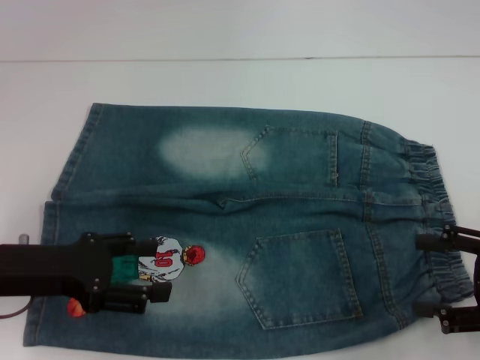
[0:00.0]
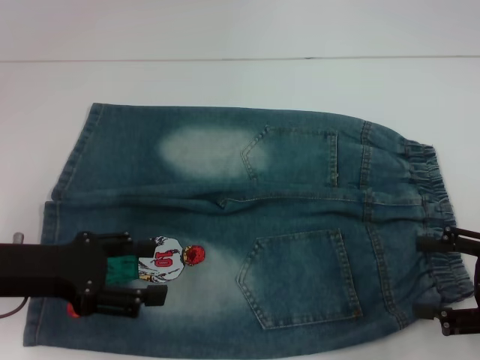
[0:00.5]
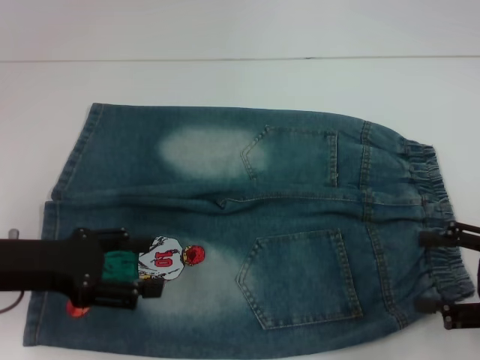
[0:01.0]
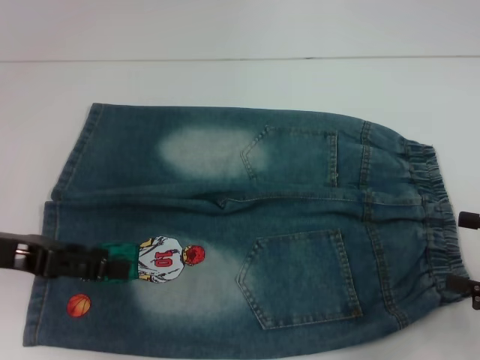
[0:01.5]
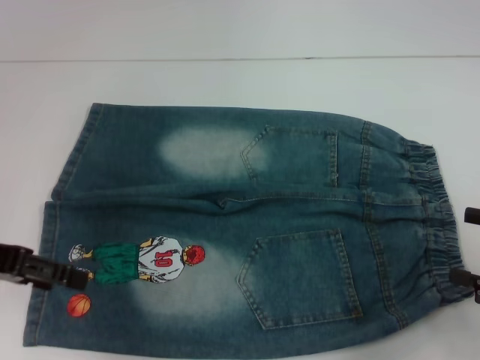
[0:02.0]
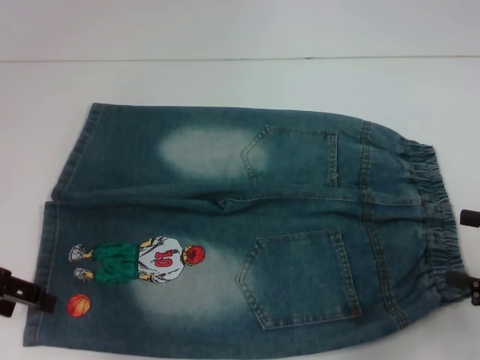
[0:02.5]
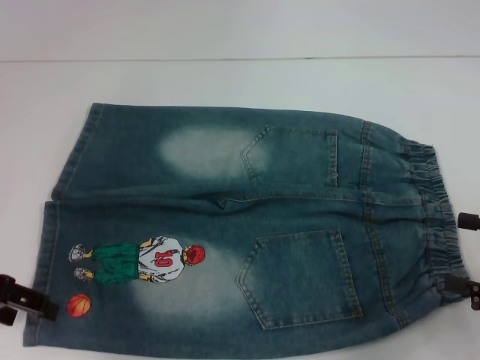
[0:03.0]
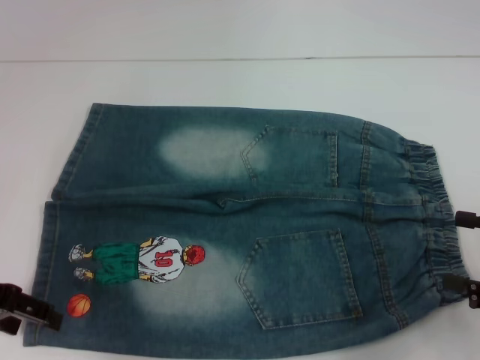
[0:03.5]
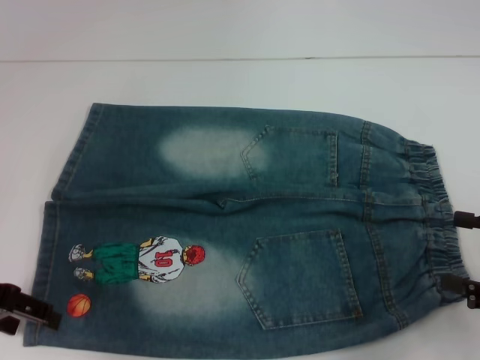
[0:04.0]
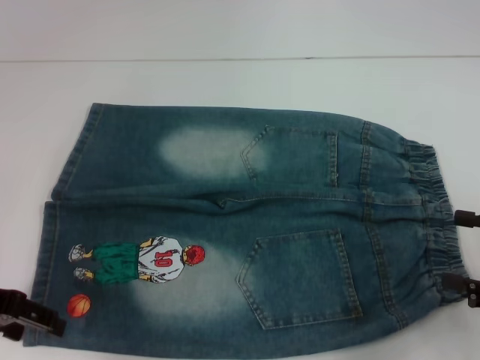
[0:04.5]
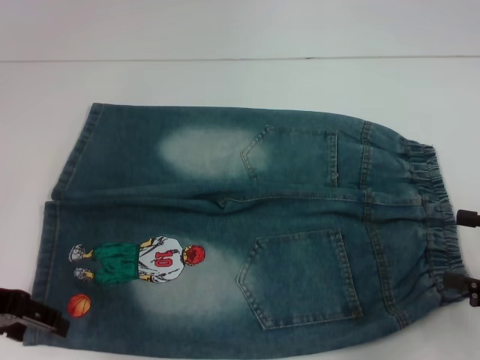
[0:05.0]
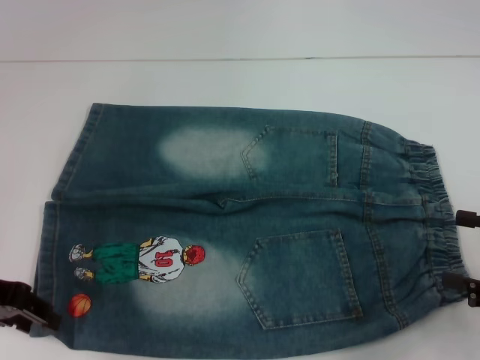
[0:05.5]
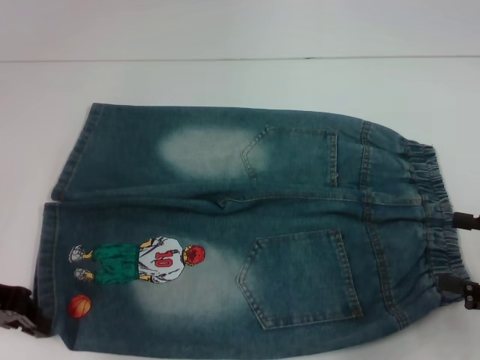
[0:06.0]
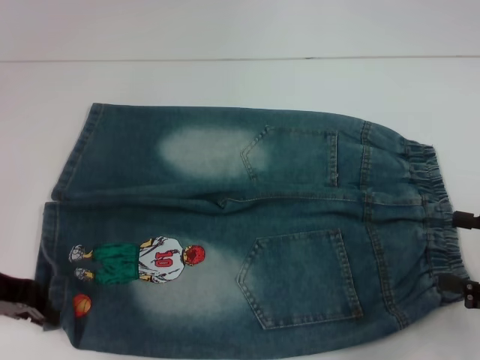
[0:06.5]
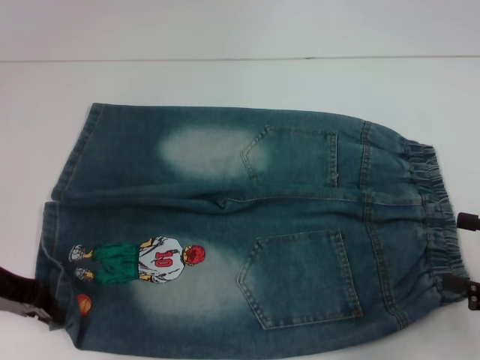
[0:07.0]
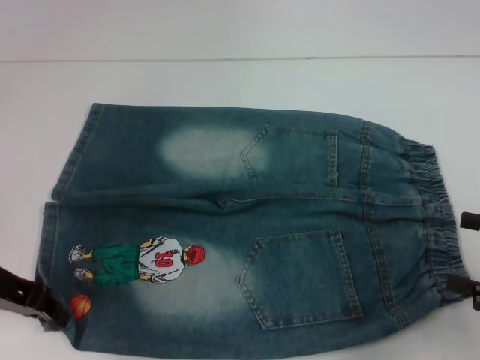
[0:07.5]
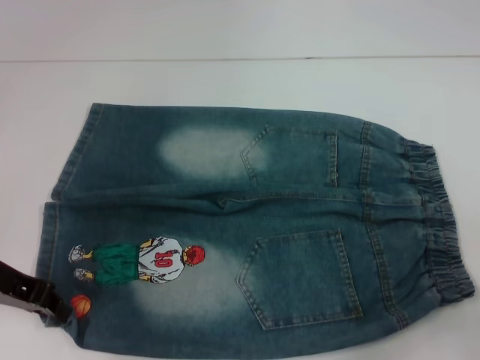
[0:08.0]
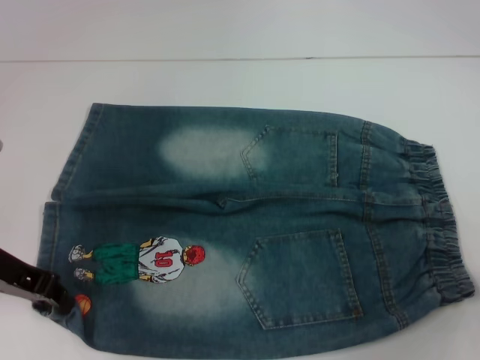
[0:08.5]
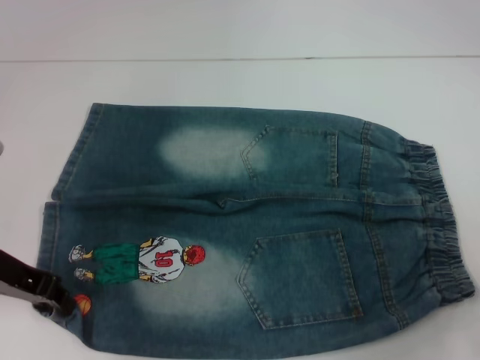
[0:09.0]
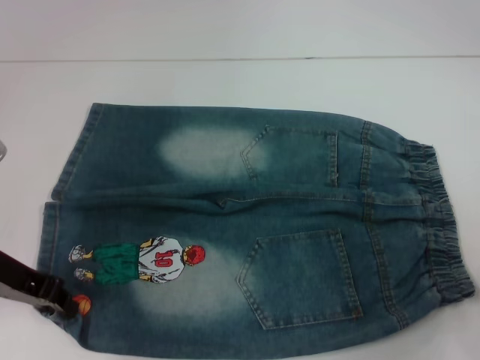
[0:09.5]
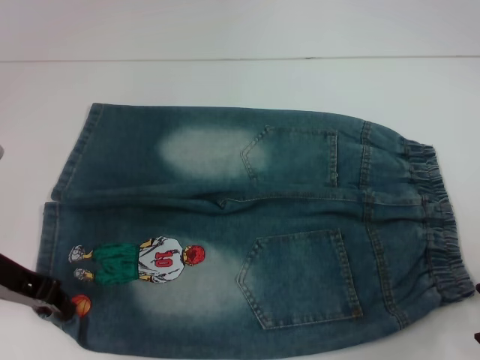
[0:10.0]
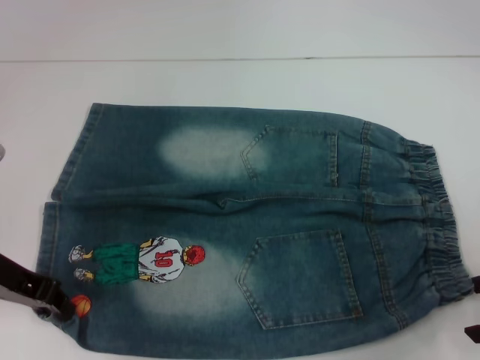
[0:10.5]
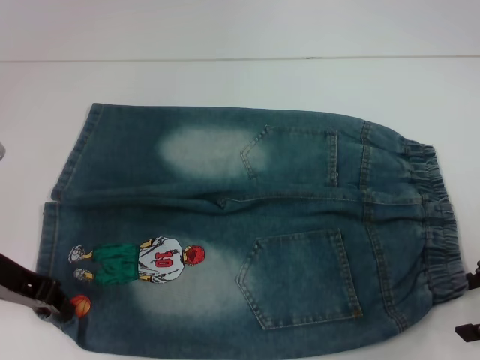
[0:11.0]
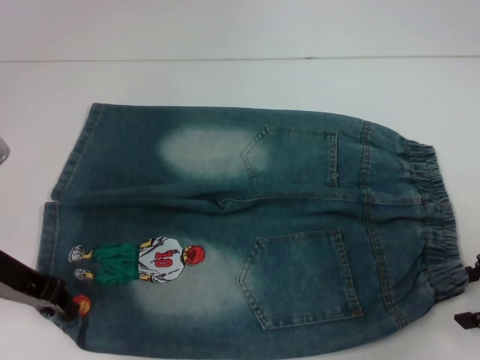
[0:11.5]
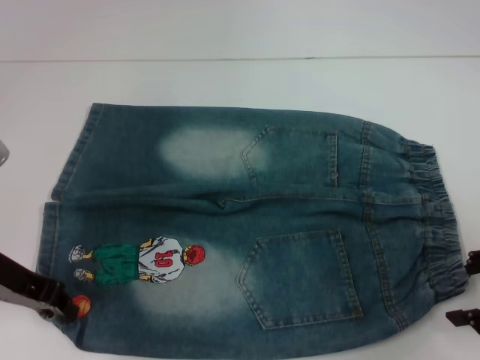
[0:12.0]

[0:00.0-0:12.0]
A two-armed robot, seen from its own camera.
Step, 0:00.0 to 0:05.5: Grab the lower left pant leg with your left hand.
0:00.0 to 0:02.0: The left gripper goes roughly 5 cm upward.
0:02.0 to 0:04.0: The grippers make only small movements.
0:04.0 to 0:06.0: The left gripper closes.
0:10.0 to 0:12.0: The grippers stay close to where they were, moving slightly.

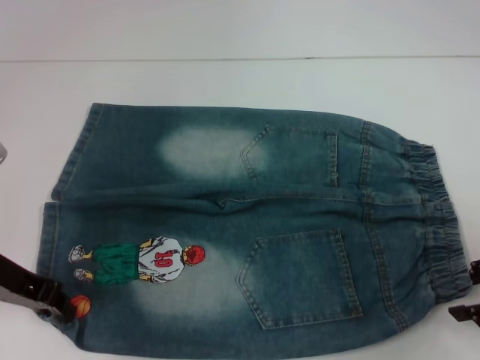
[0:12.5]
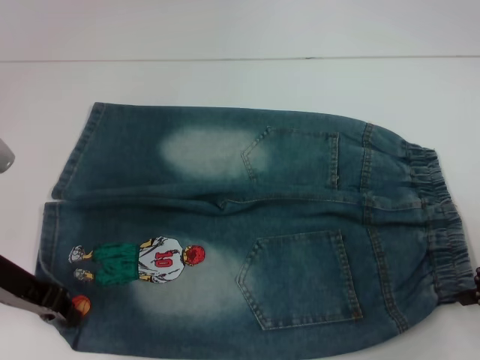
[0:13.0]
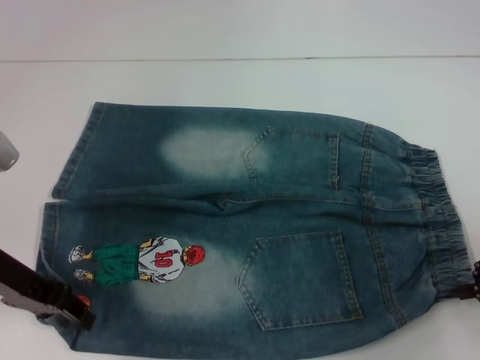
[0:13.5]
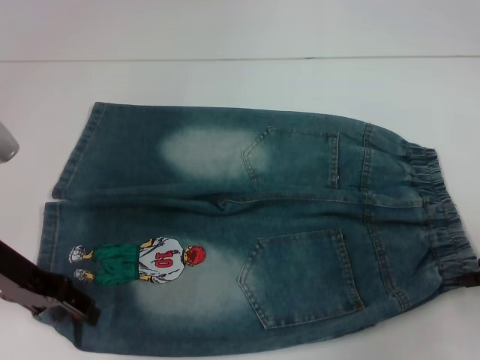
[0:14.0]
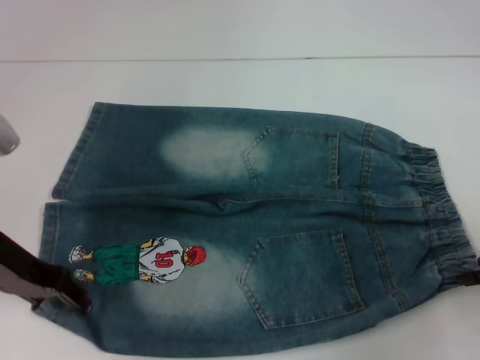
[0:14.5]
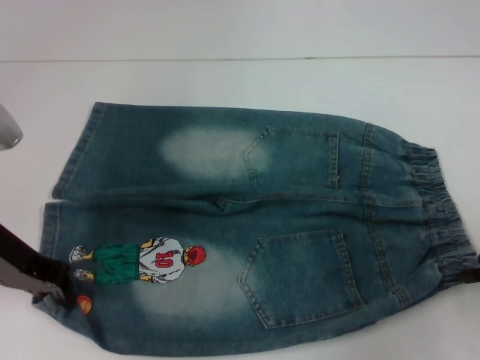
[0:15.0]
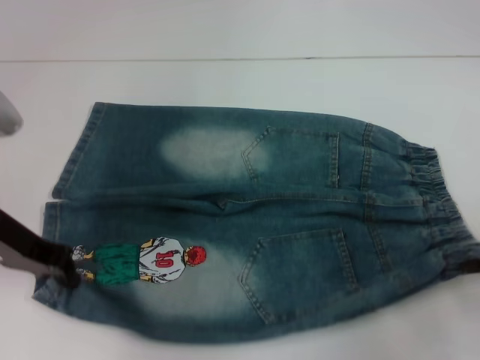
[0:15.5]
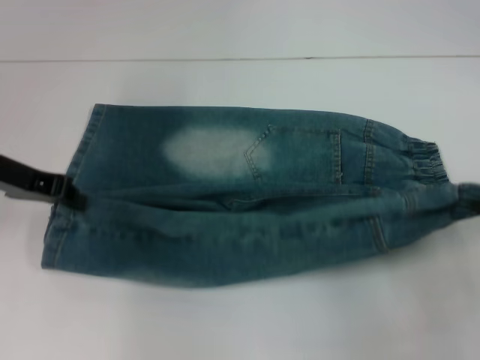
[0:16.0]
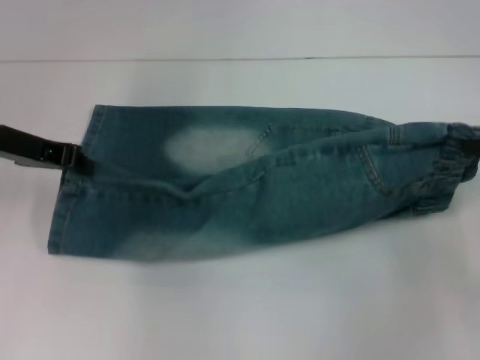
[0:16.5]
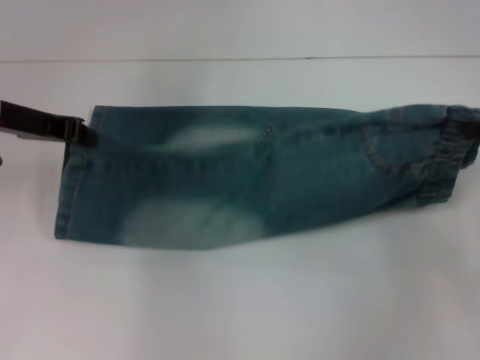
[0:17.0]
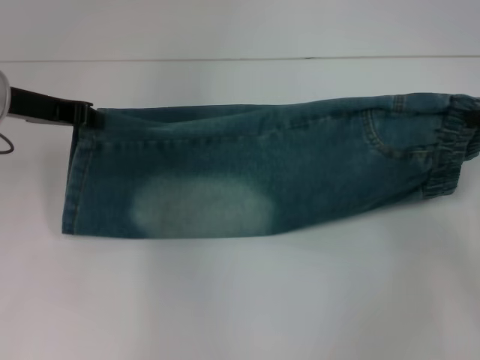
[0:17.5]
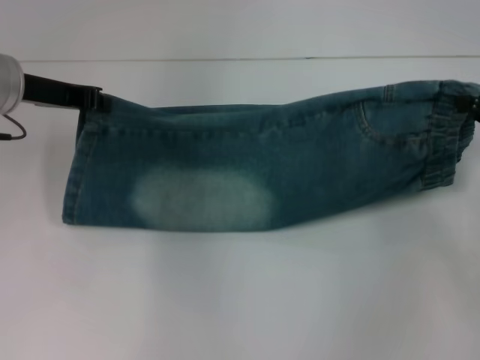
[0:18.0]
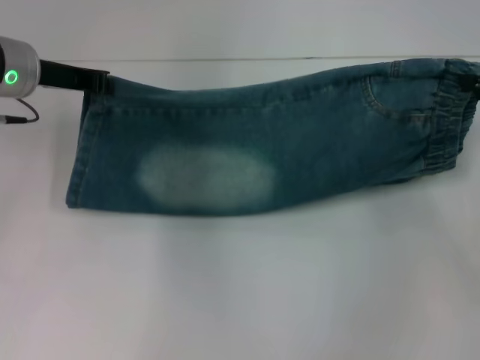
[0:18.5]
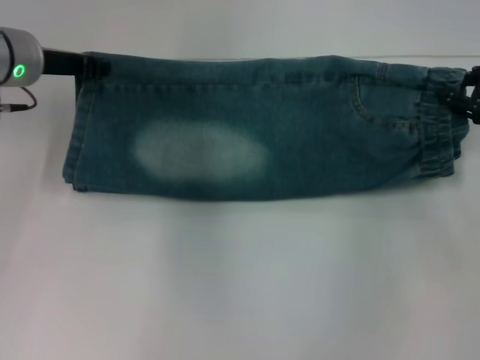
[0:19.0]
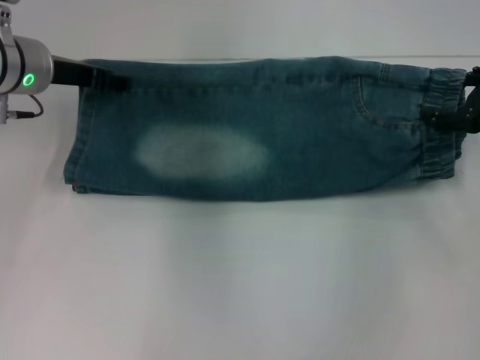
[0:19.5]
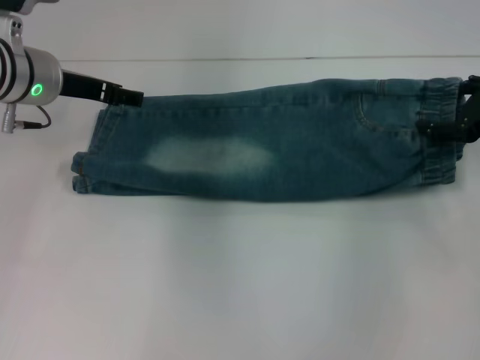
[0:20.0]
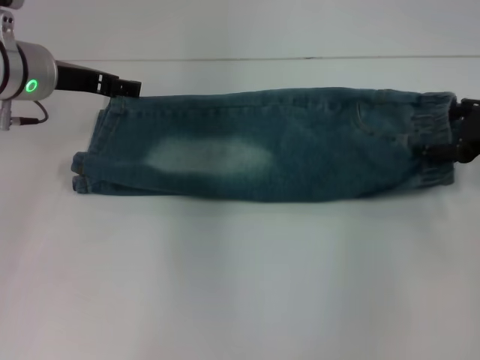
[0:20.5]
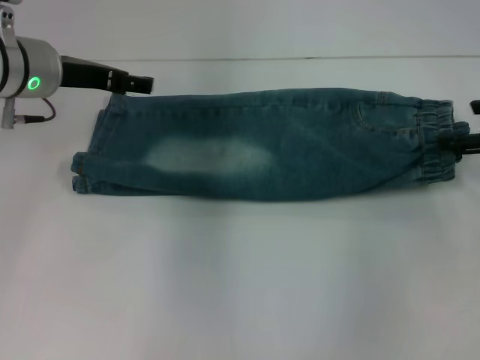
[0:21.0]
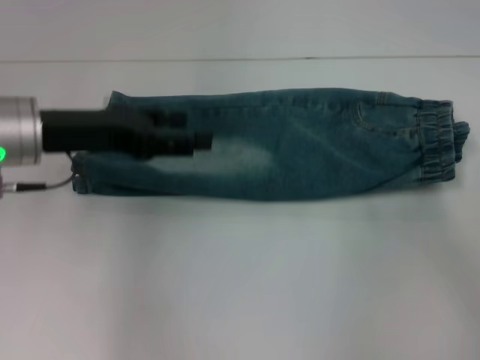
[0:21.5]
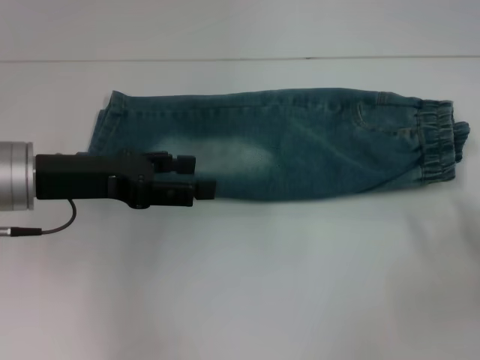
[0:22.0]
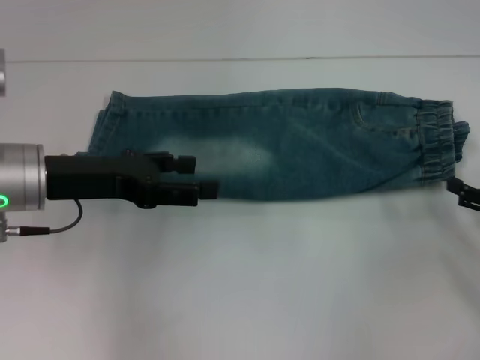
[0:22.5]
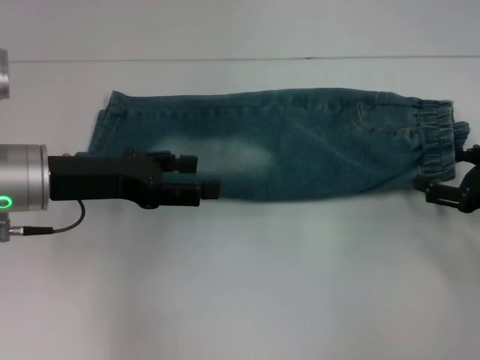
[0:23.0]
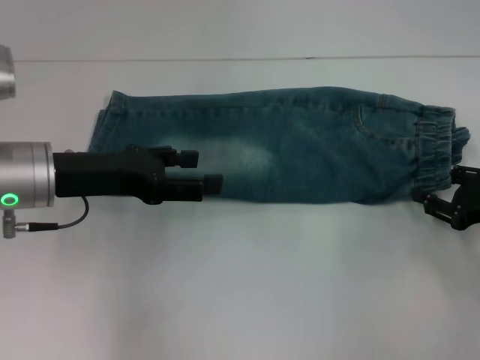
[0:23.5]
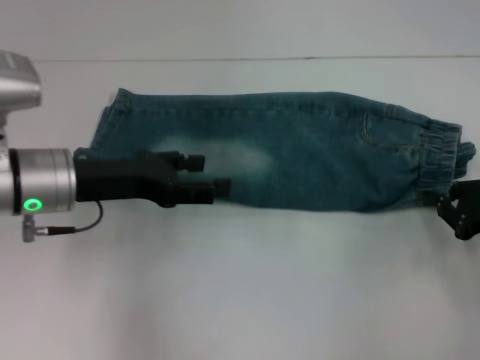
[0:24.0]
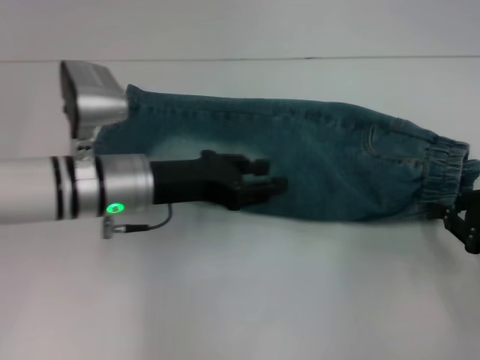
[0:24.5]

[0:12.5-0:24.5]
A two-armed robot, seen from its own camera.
Step, 0:13.5 to 0:20.5: Fold upward with your right hand.
Step, 0:21.0 to 0:24.0: Grab the waistband with your right hand.
0:12.5 to 0:14.5: The right gripper closes up. Meanwhile the left gripper opens its fingers.
0:14.5 to 0:16.5: The right gripper shifts by roughly 5 cm. The left gripper moves forward, roughly 5 cm, and closes up.
0:16.5 to 0:18.5: The right gripper shifts approximately 5 cm forward; the left gripper changes place by approximately 5 cm.
0:18.5 to 0:20.5: The left gripper opens up. Meanwhile the right gripper moves about 5 cm, and opens its fingers.
0:20.5 to 0:22.5: The right gripper heads backward and downward, covering approximately 10 cm, while the left gripper moves backward, some 10 cm.
0:22.5 to 0:24.5: The right gripper closes its fingers. Meanwhile the left gripper heads to the right, covering roughly 10 cm.

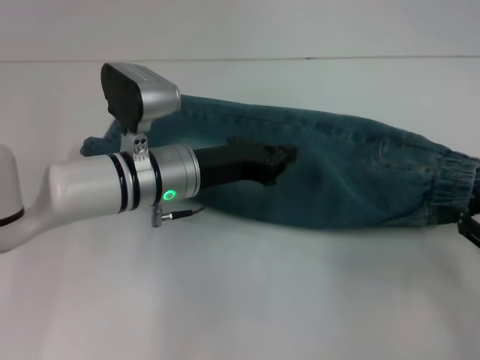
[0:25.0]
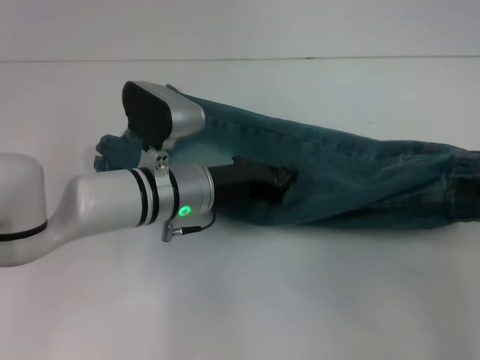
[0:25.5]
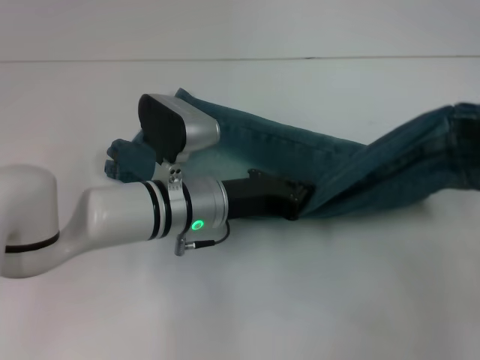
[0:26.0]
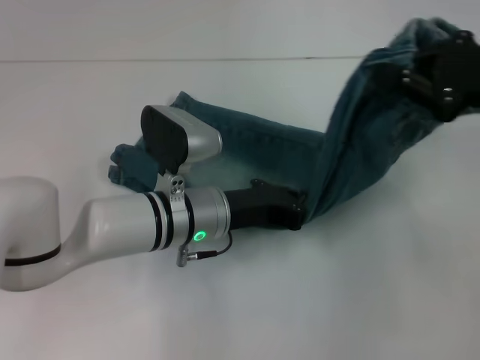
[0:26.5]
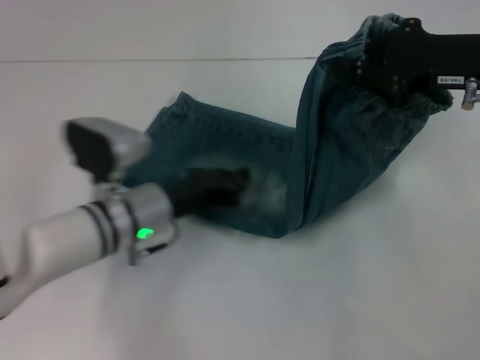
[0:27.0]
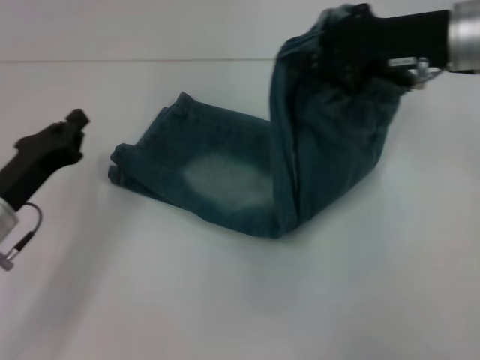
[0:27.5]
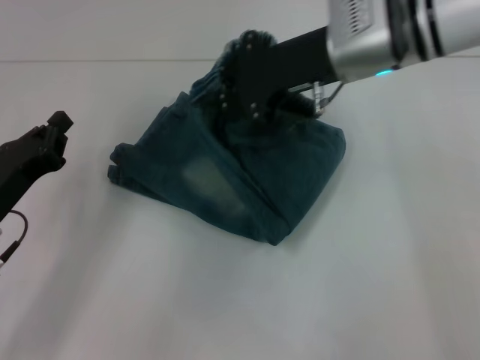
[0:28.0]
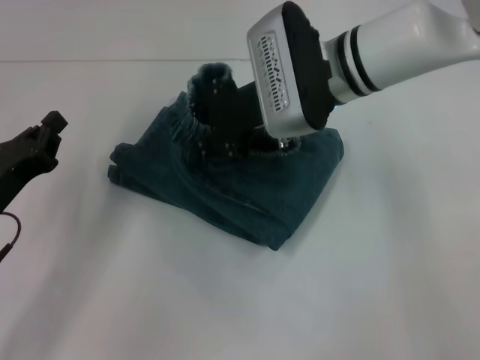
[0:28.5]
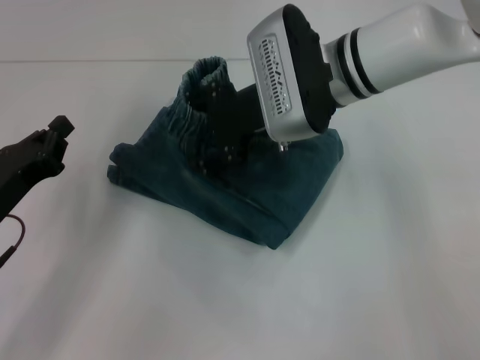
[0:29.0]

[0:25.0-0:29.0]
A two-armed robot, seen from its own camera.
Step, 0:25.0 to 0:26.5: Press the middle of the pants with your left hand.
0:25.0 to 0:27.0: The right gripper moves forward, upward and to the left, roughly 20 cm. Meanwhile the left gripper shifts by roughly 5 cm.
0:27.0 to 0:29.0: The right gripper heads to the left, covering roughly 20 cm, and opens its fingers, while the left gripper shifts some 15 cm to the left and backward.
